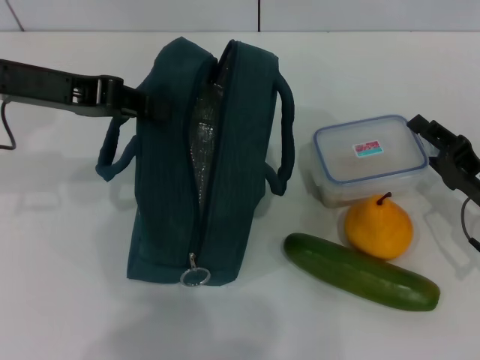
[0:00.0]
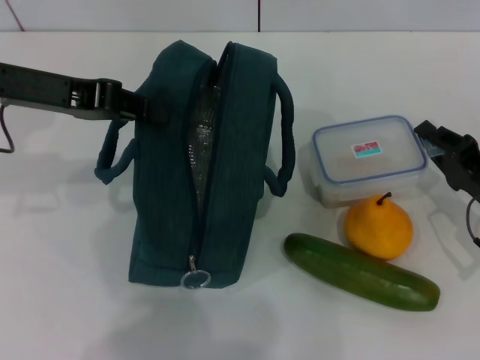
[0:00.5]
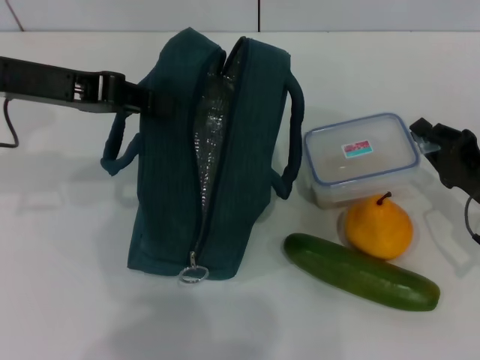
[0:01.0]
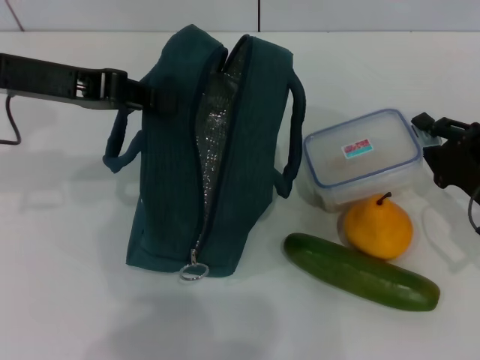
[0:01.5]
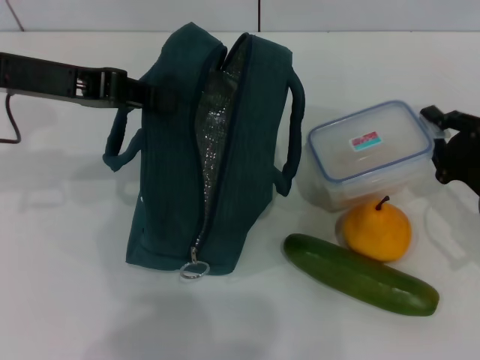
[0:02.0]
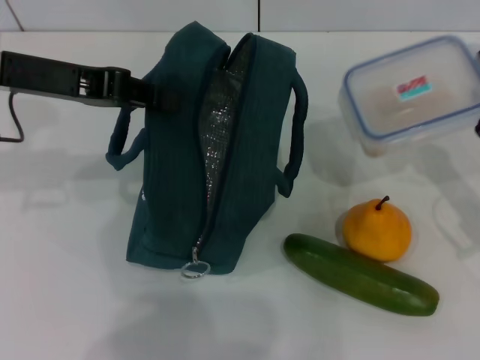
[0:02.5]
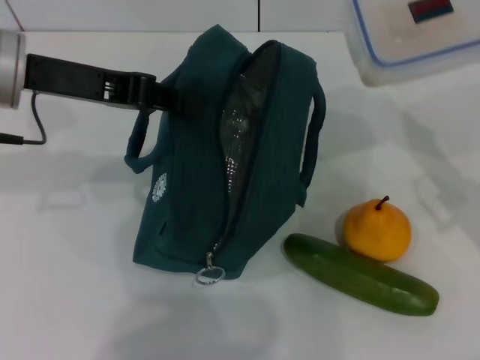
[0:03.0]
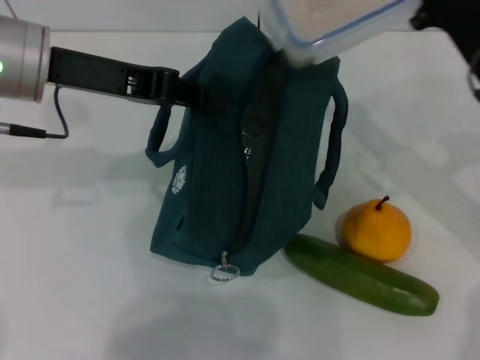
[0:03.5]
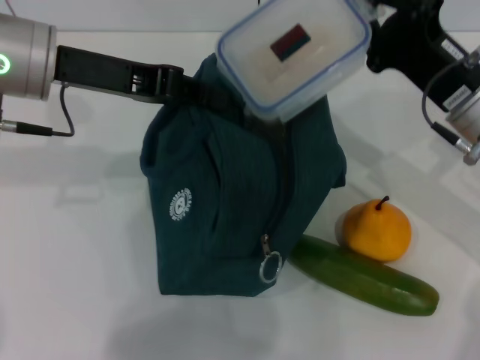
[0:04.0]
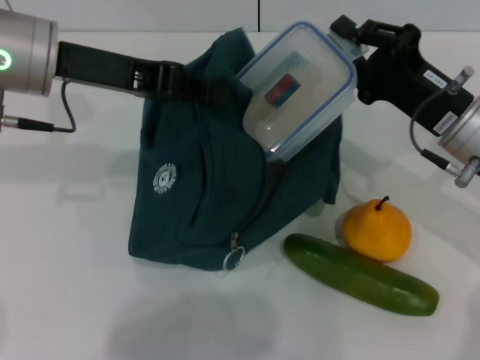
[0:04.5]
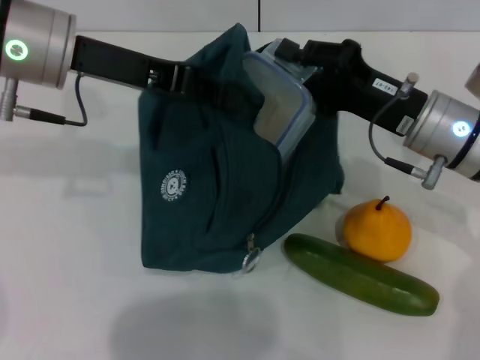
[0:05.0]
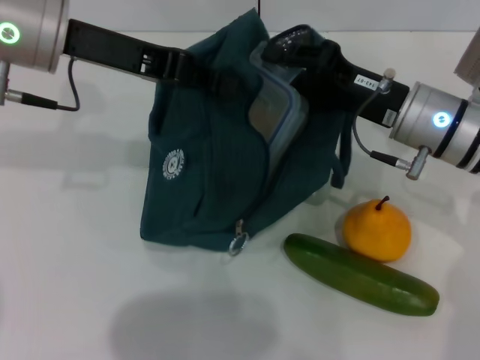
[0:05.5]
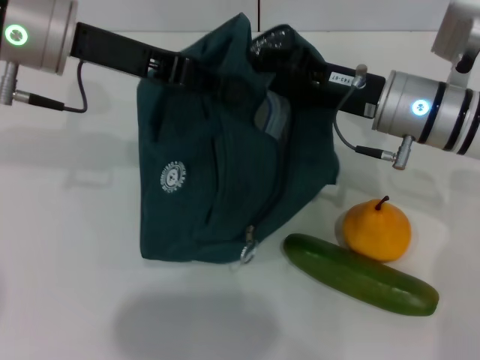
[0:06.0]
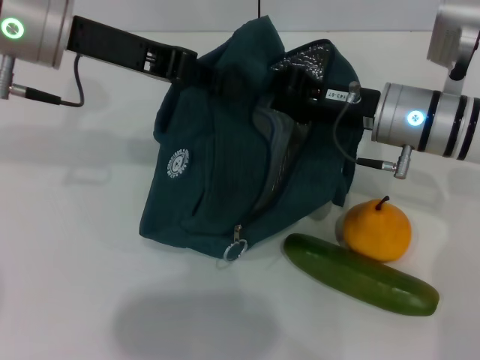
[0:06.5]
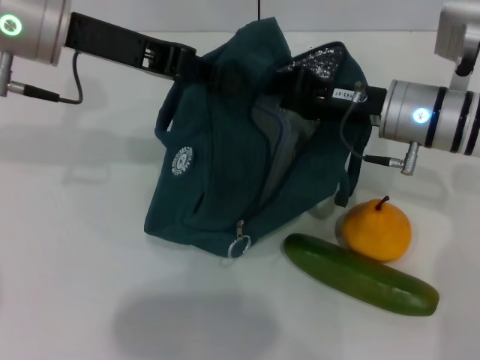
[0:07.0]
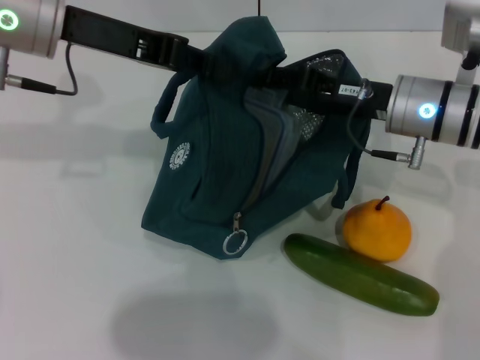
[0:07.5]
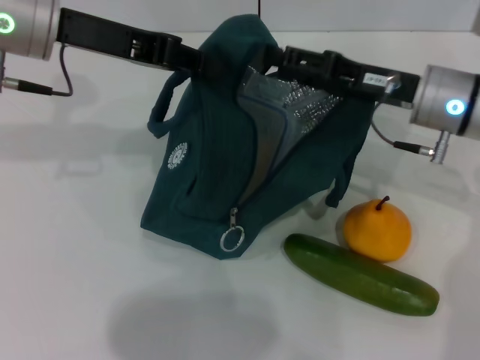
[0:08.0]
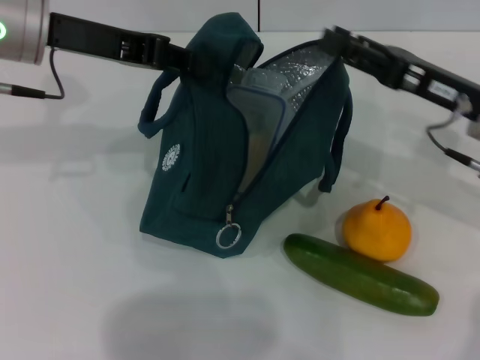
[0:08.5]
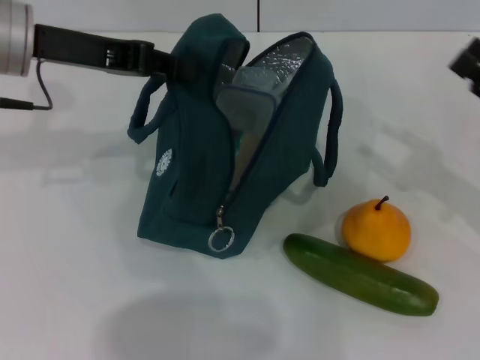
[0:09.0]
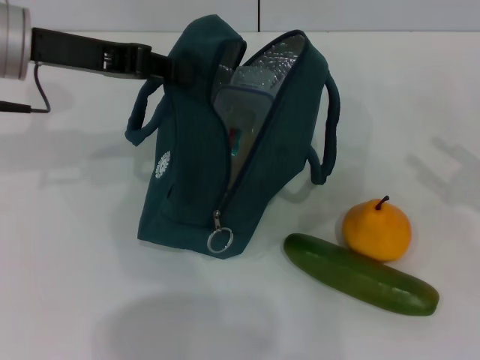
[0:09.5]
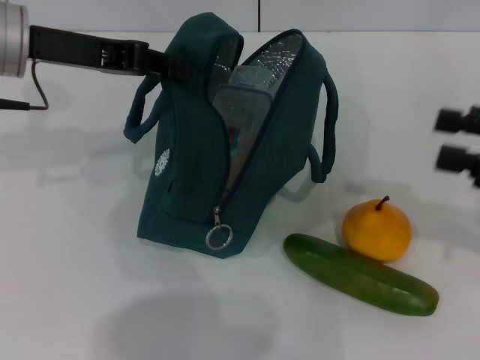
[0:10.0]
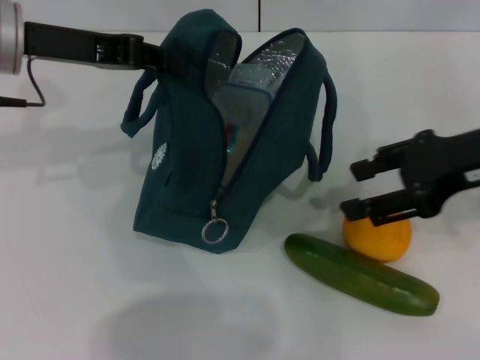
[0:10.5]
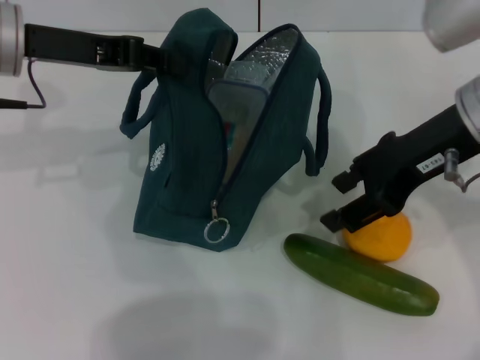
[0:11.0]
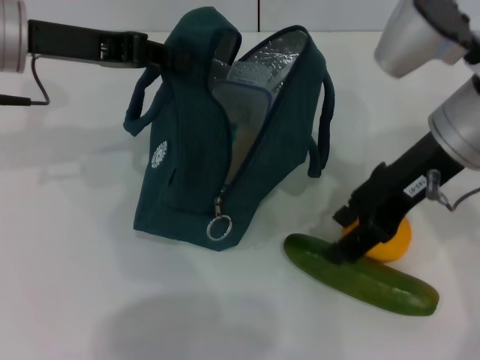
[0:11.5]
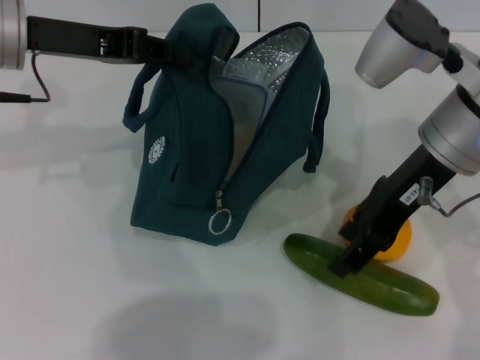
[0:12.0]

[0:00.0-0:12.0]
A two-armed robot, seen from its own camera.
Step, 2.0 to 7.5 s: Place the lunch box into the lunch bag with your right hand.
0.0 to 2.0 s: The right gripper closes.
2.0 to 4.0 s: The right gripper shifts some 15 cm upward, to the left and forward.
4.0 to 6.0 s: The right gripper moves to the left, approximately 5 cm.
6.0 to 8.0 s: The right gripper opens its fingers.
8.0 to 10.0 s: The right gripper moves to the right and backward, some 20 cm.
10.0 to 12.0 s: The right gripper moves to the left, some 20 cm.

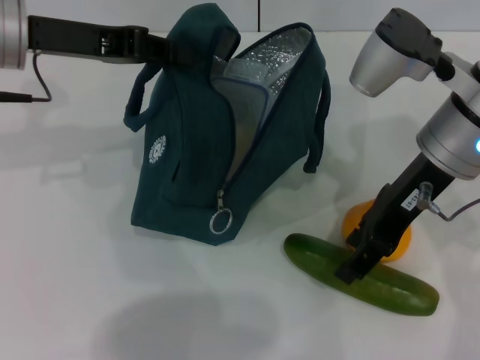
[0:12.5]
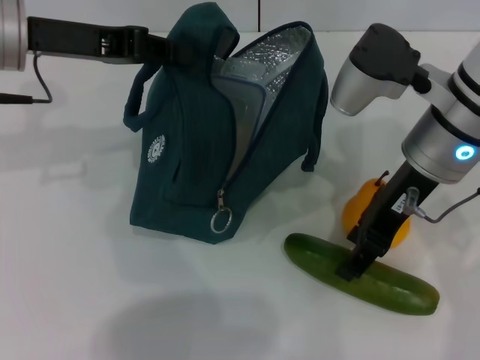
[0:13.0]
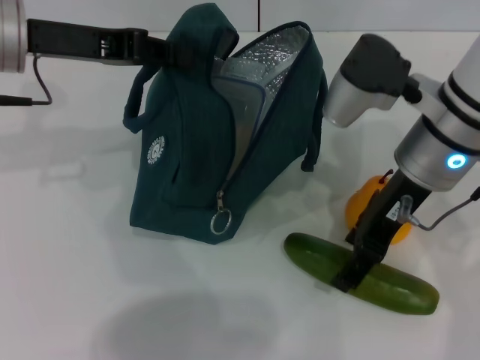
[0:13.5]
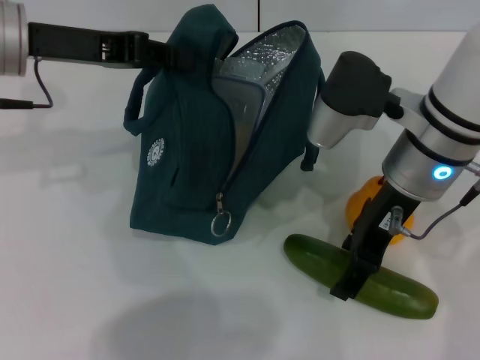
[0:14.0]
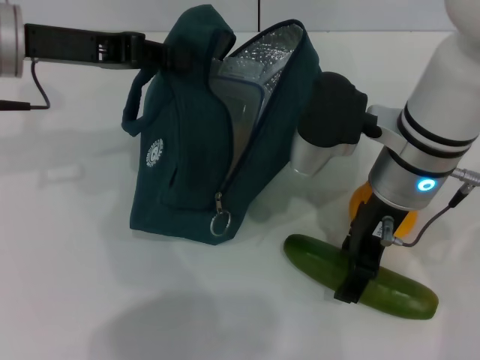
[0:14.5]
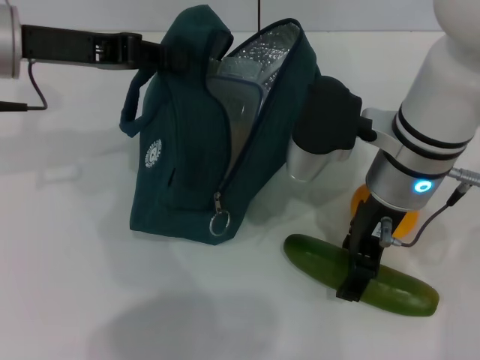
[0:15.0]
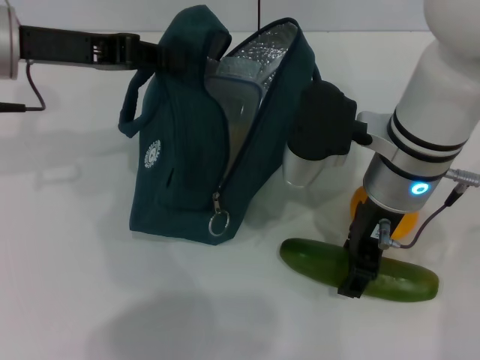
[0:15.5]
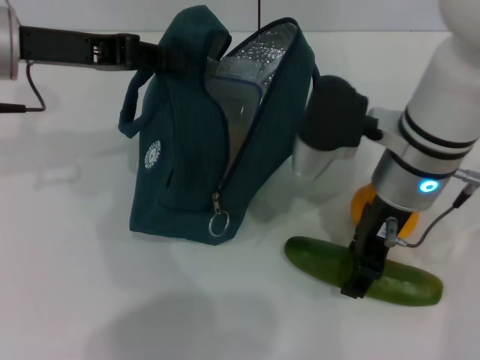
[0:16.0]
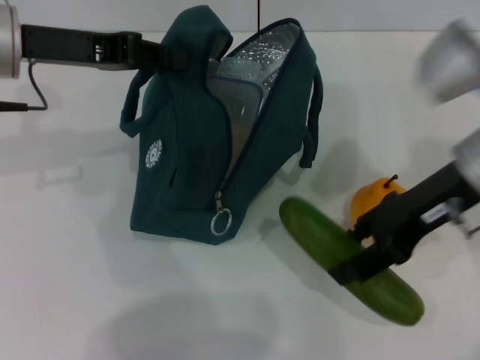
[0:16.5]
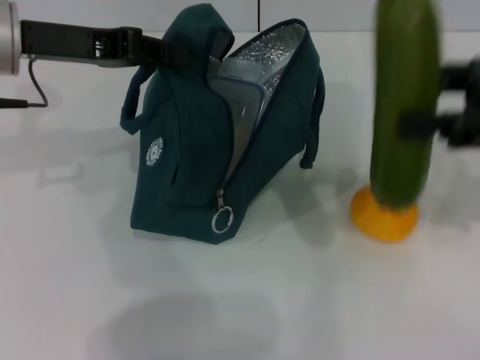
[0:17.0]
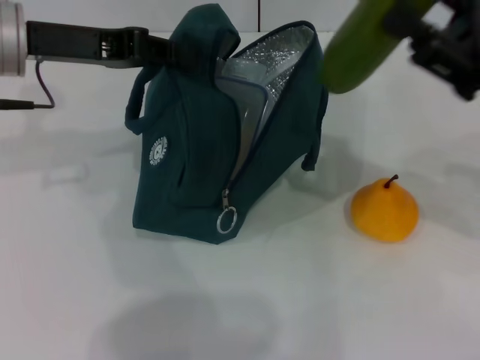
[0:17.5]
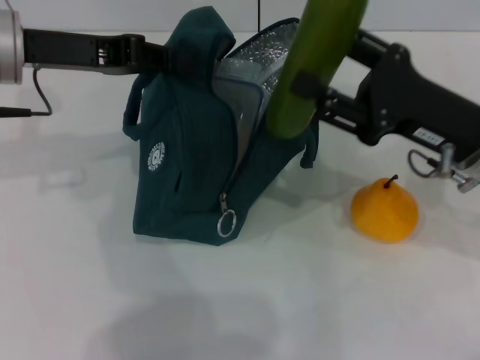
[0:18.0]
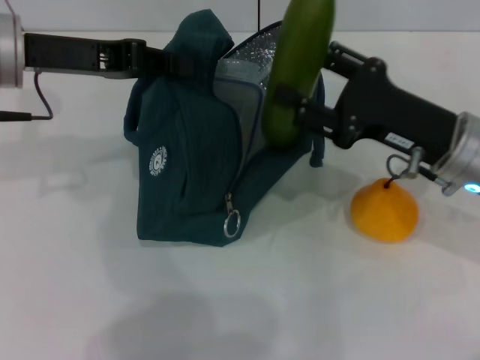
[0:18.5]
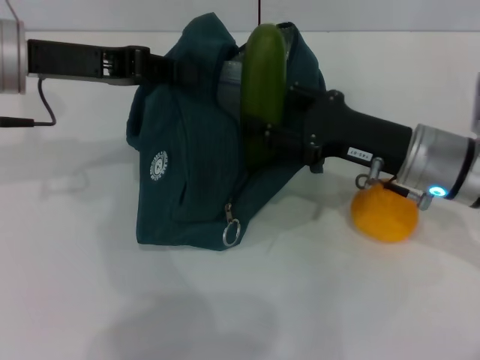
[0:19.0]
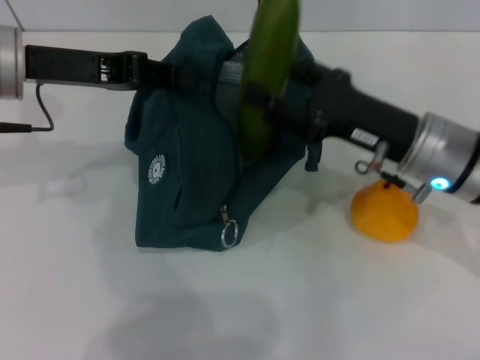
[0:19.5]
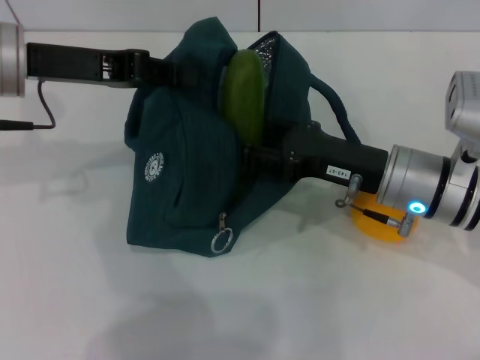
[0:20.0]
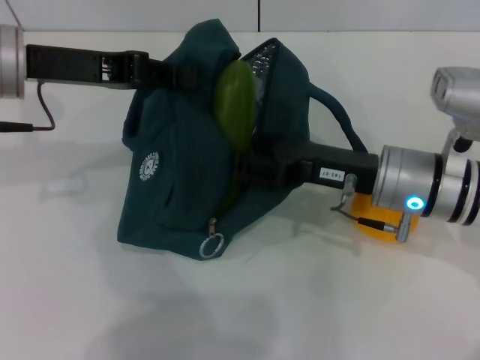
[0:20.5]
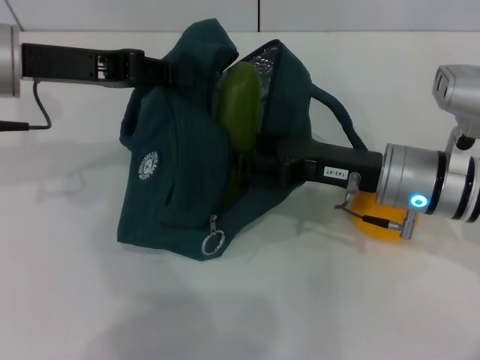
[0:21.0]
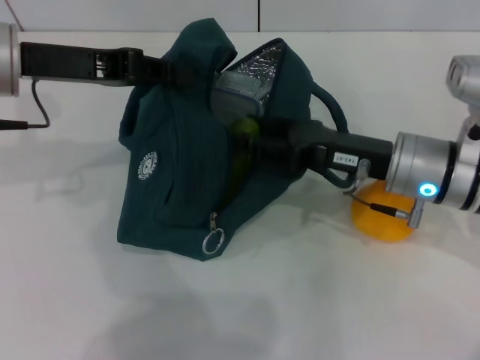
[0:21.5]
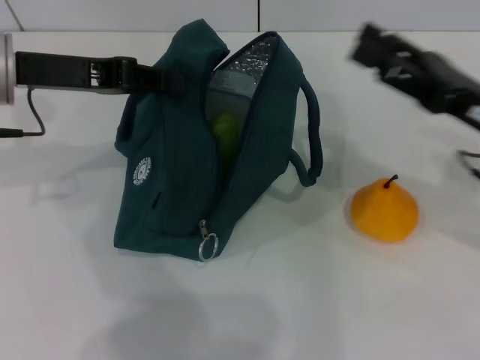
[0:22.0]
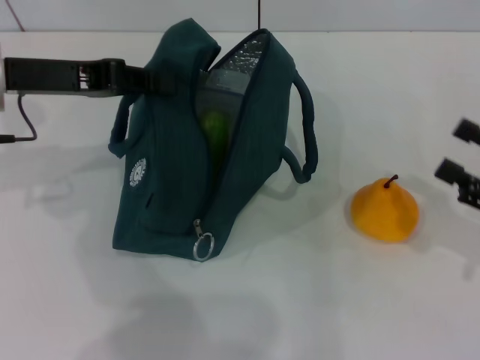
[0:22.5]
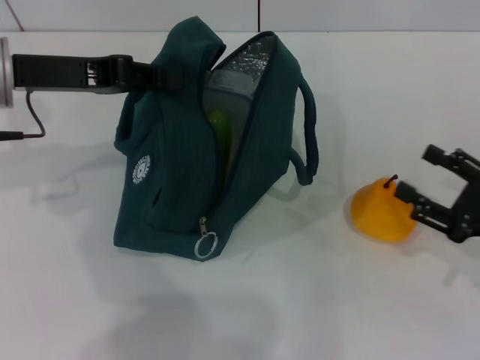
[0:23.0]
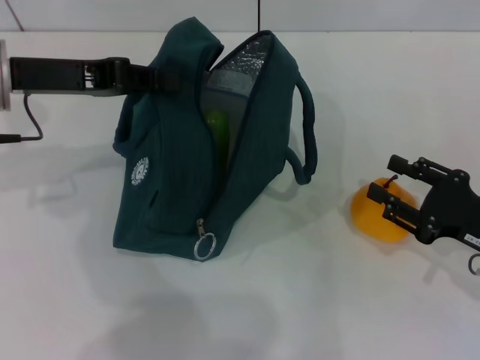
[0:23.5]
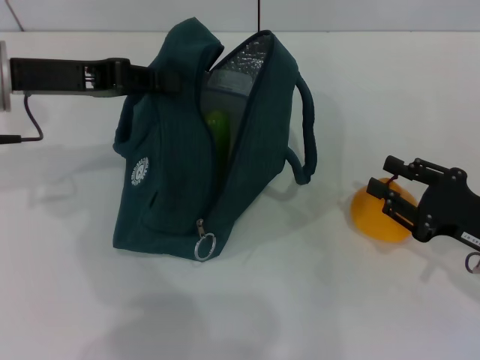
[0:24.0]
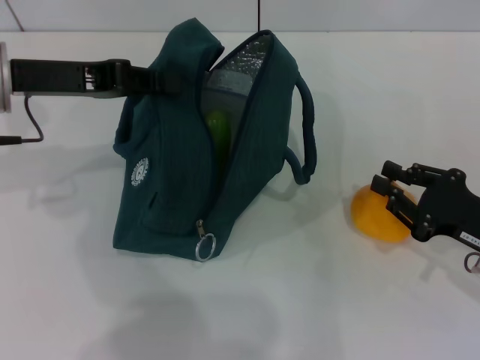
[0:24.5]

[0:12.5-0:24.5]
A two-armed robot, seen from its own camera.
Step, 12.5 to 15.5 s: Pick up the cucumber with your right hand.
Step, 16.0 to 21.5 s: Put the cucumber into the lunch bag with your right hand.
12.5 to 14.5 s: The right gripper changes place by some 5 cm.
14.5 to 16.5 s: The right gripper moves to the right, roughly 10 cm.
16.5 to 18.5 s: The right gripper travels downward by about 5 cm.
18.5 to 20.5 s: The right gripper changes place by approximately 5 cm.
20.5 to 22.5 s: The right gripper is displaced to the right by about 20 cm.
22.5 to 24.5 s: The right gripper moves to the left, about 5 cm, and closes up.

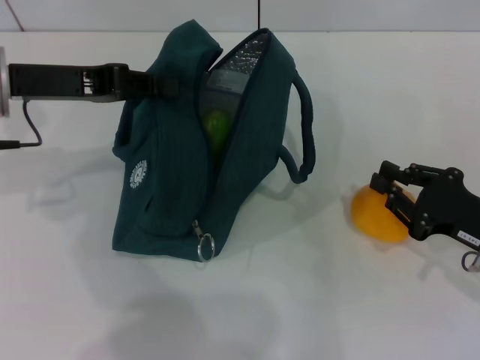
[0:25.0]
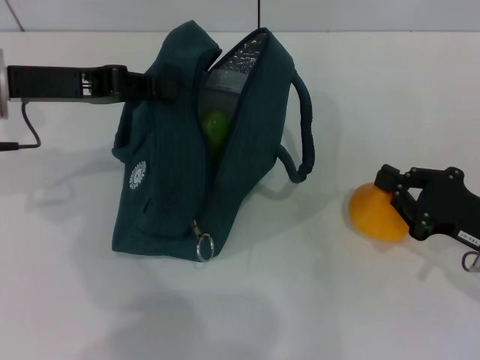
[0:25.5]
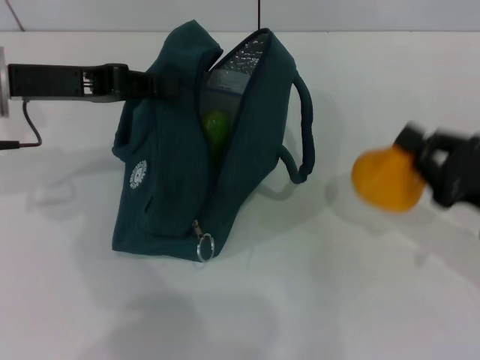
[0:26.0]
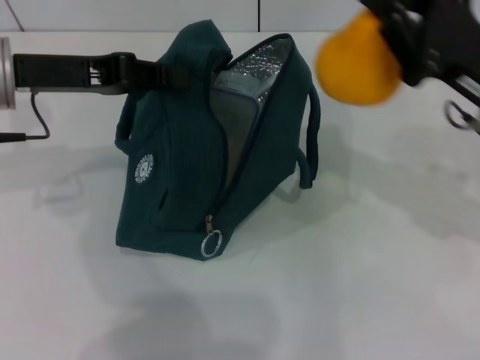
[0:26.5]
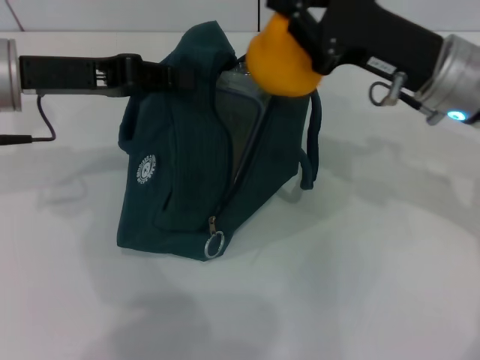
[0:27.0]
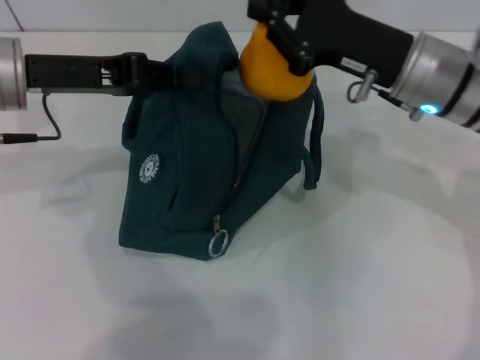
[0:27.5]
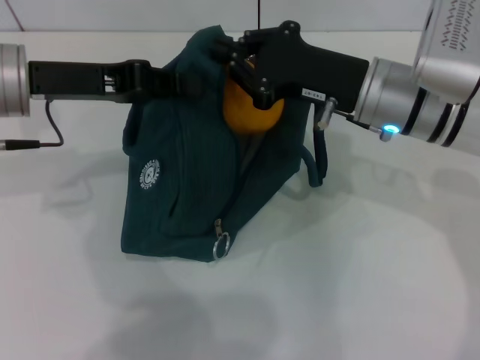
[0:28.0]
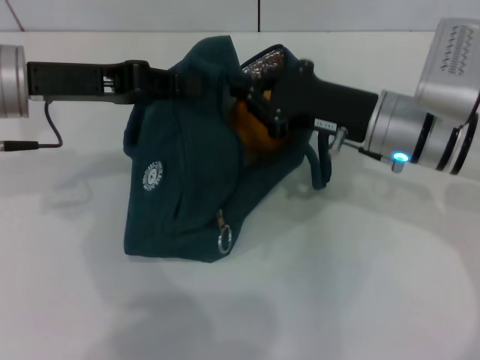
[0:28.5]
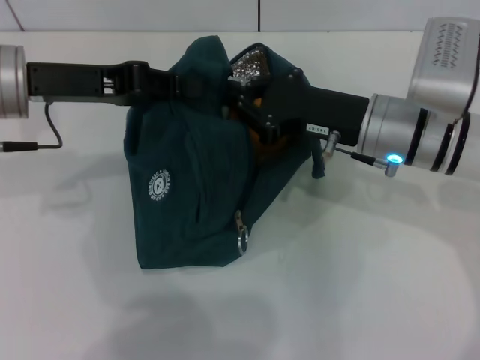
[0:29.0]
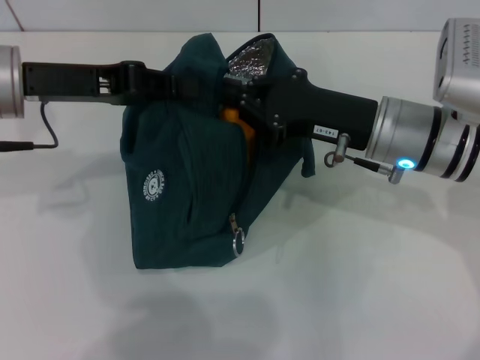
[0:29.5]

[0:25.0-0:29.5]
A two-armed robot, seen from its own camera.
25.0 to 27.0 s: The right gripper is displaced upward, to the left and forward by roughly 20 cm.
27.0 to 29.5 s: The right gripper shifts by some 5 cm.
